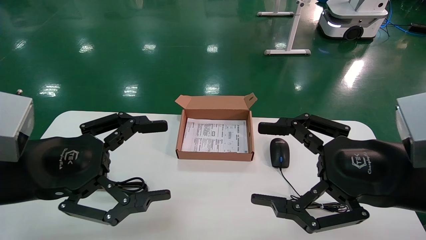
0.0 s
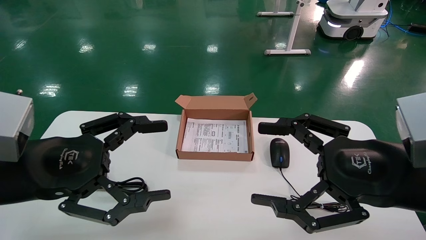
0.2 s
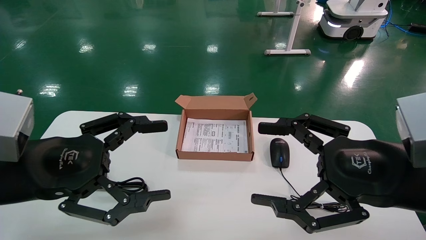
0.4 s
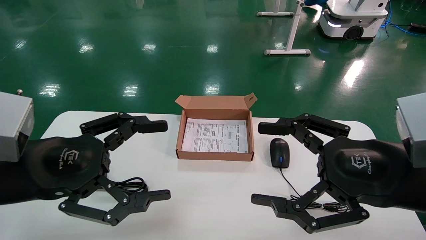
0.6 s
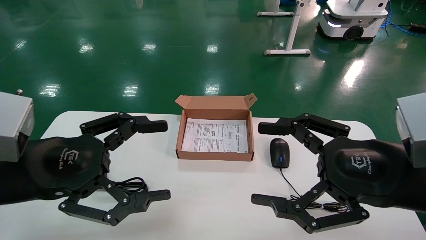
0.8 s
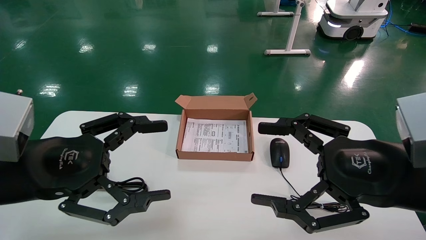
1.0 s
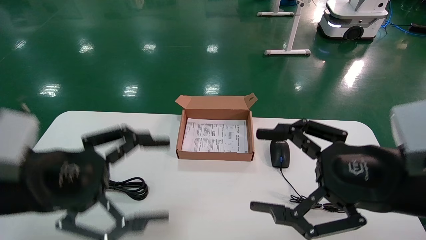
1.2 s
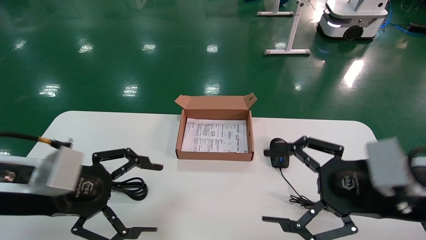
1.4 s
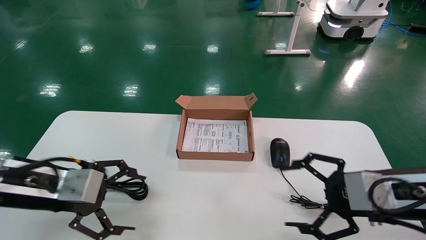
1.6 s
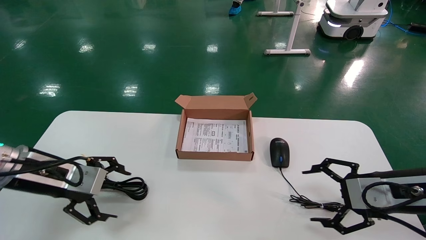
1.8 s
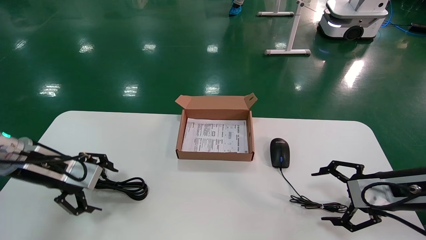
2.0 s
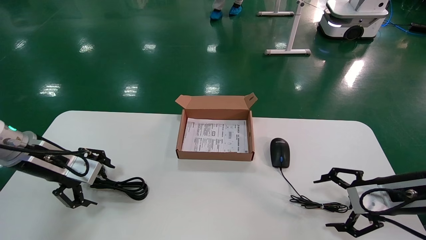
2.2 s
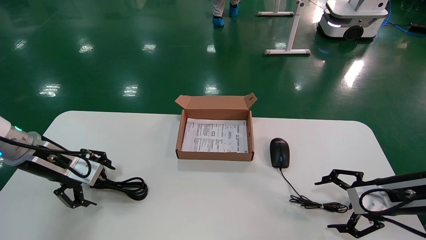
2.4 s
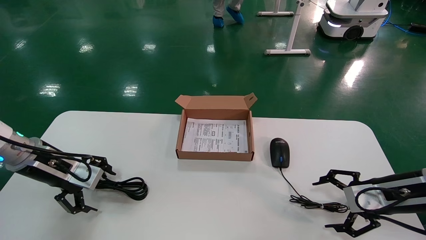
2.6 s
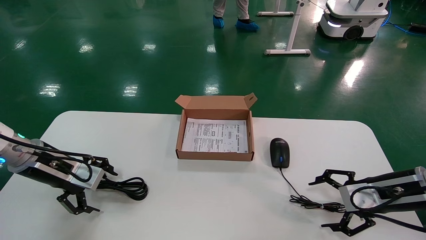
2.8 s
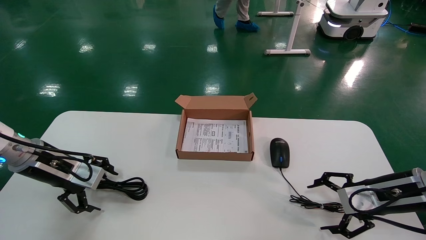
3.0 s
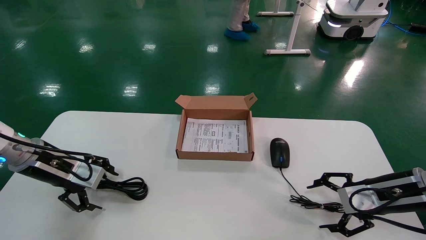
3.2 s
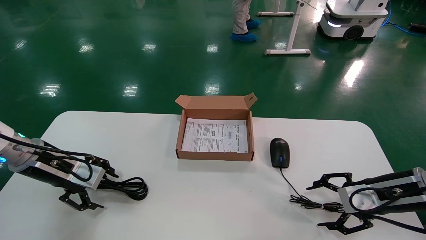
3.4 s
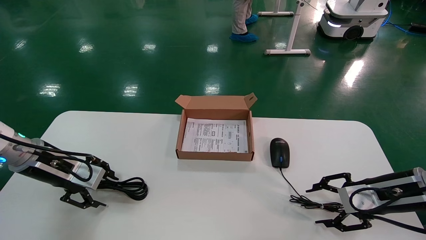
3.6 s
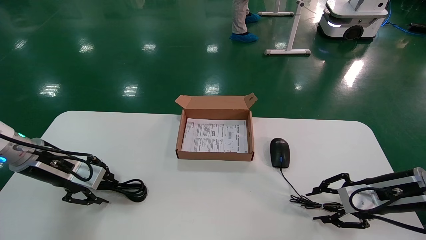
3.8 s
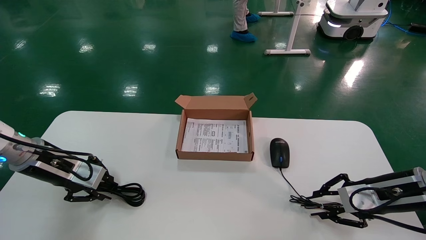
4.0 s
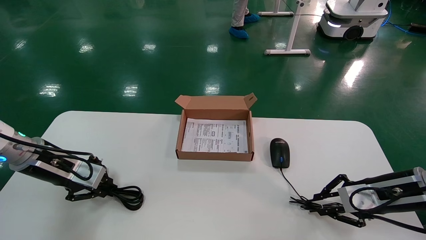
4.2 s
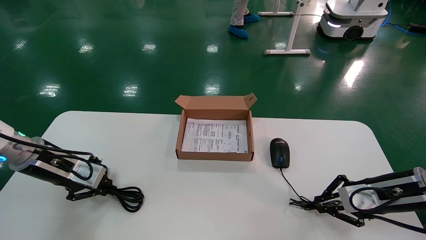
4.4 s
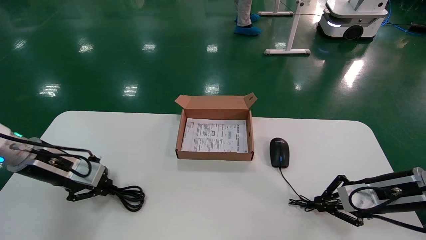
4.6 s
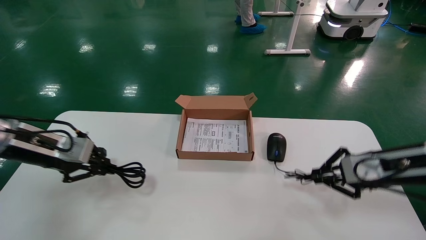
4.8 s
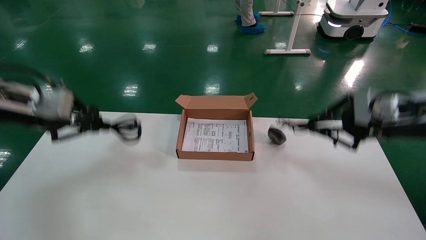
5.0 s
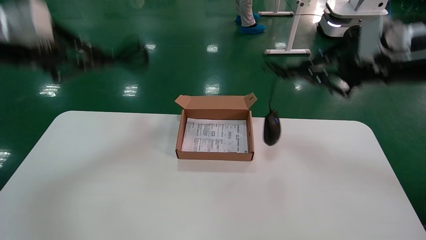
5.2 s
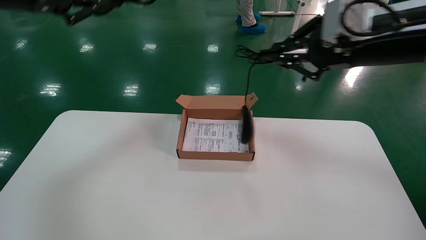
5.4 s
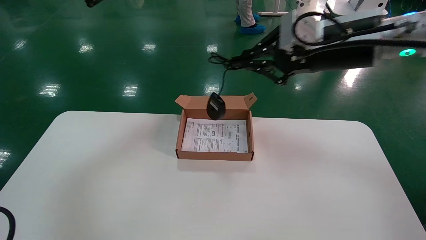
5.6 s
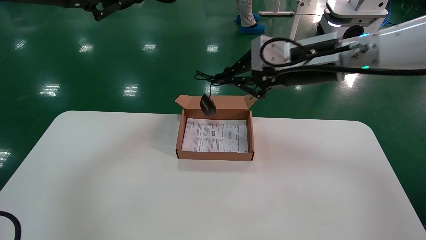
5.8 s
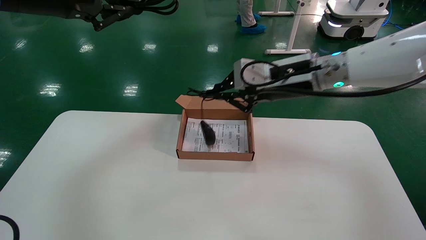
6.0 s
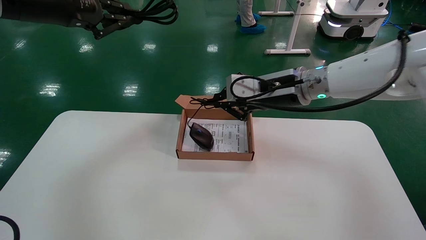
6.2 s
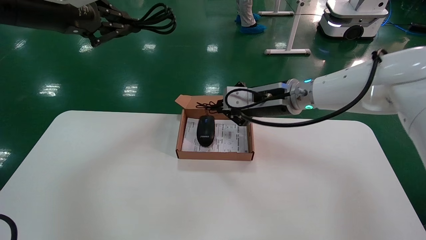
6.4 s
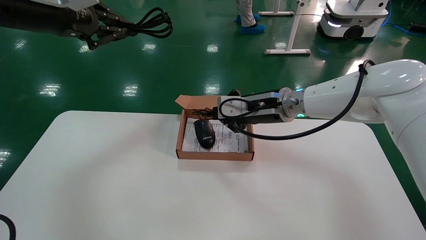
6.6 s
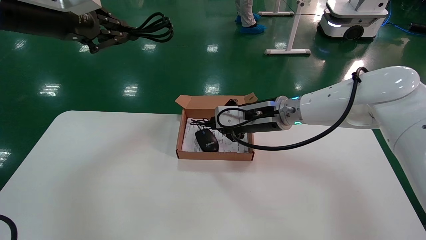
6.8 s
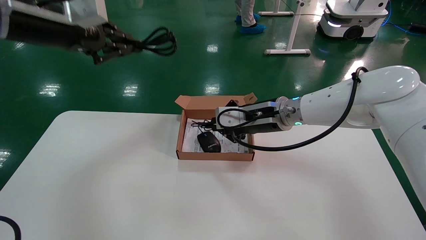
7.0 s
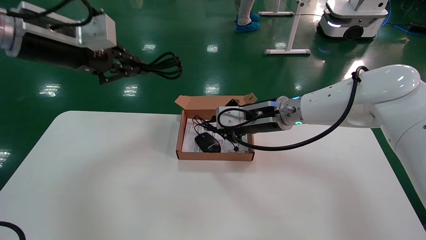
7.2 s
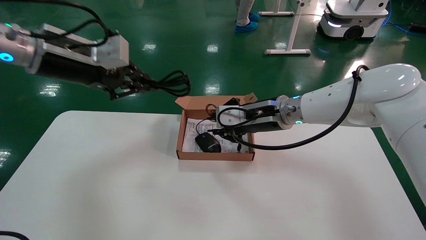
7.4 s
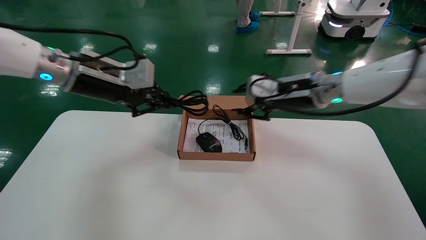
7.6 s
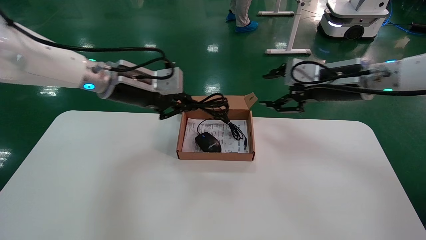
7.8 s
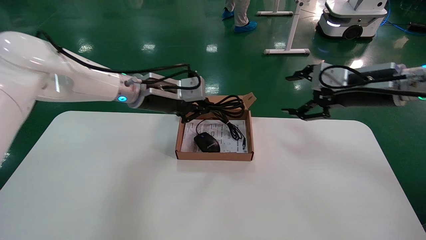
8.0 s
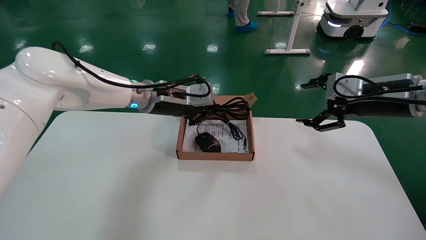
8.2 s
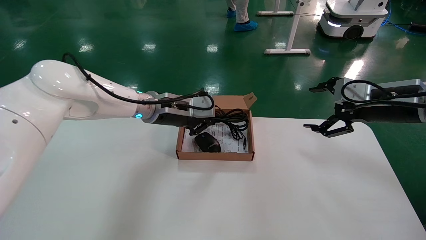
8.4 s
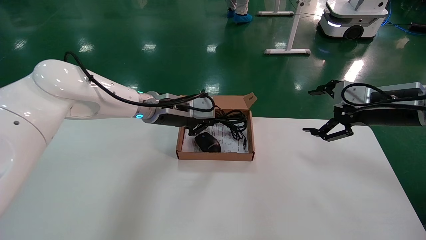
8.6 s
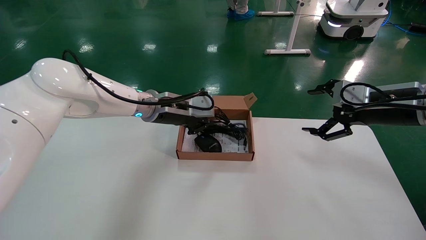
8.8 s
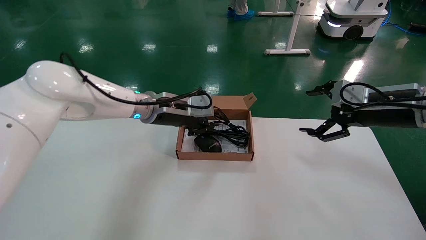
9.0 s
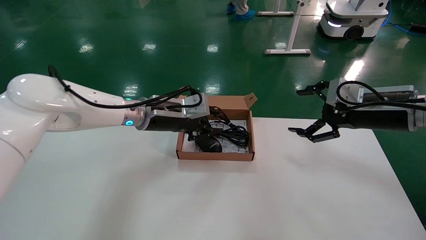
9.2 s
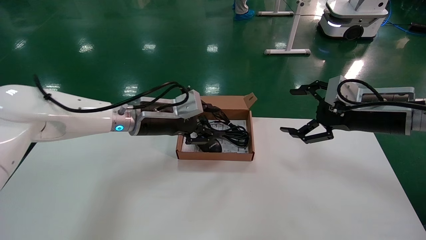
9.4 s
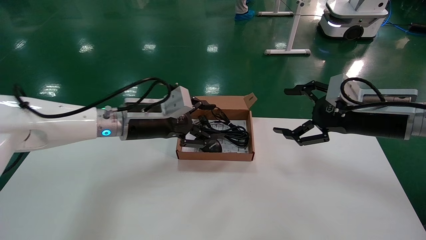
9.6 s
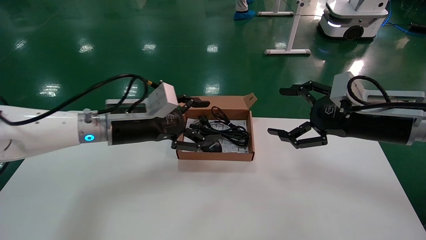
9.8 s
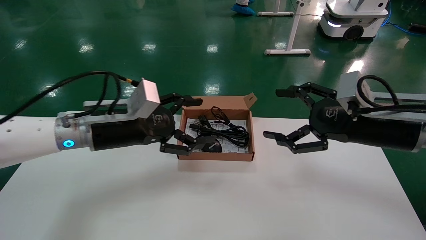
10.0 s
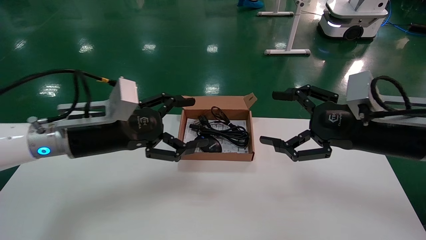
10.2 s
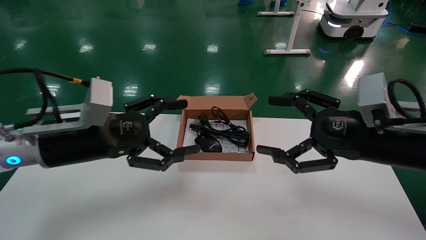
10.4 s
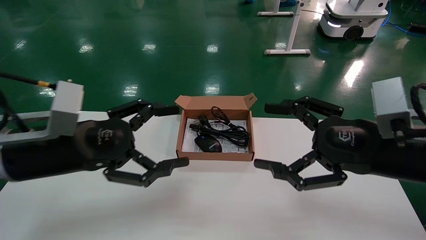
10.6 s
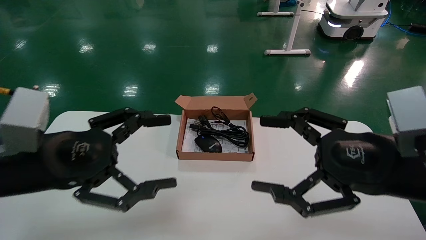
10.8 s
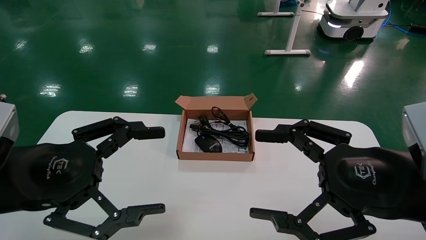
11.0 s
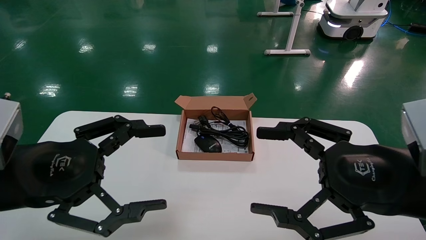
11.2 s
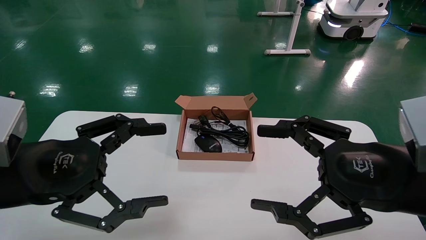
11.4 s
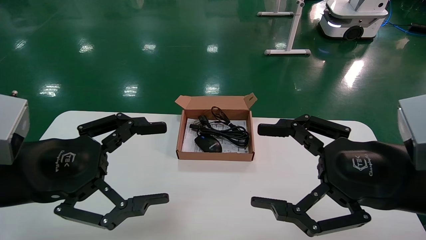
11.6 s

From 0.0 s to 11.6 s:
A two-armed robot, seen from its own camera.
Step, from 1.4 s to 4.4 s: Grab and lift both the mouse and power cord from the accessory packaging area at the same time.
Step, from 4.6 s to 8.8 s: Place the mouse and power cord into the box.
From 0.0 s to 1.4 s: The right gripper ends up approximately 5 cm from where it was.
From 1.4 s to 2.8 s: The left gripper is displaced forward and to the left by some 15 cm, while the right gripper heads forward, to the right and downward, covering about 15 cm.
From 2.8 s to 4.4 s: The left gripper closes its fingers; the right gripper closes up.
From 4.4 s to 5.8 s: The left gripper travels upward by roughly 30 cm. The right gripper heads upward and to the left, covering about 30 cm.
From 5.8 s to 7.2 s: The right gripper shifts roughly 15 cm downward, forward and to the left; the left gripper travels downward by about 5 cm.
From 7.2 s to 8.8 s: The right gripper shifts some 20 cm to the right, and opens its fingers, while the left gripper travels to the right, downward and forward by approximately 25 cm.
From 8.8 s to 10.2 s: The right gripper moves backward and to the left, about 10 cm. The left gripper travels backward and to the left by roughly 15 cm, and opens up.
From 10.2 s to 11.6 s: The two grippers go some 10 cm backward.

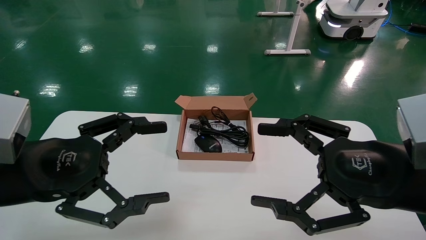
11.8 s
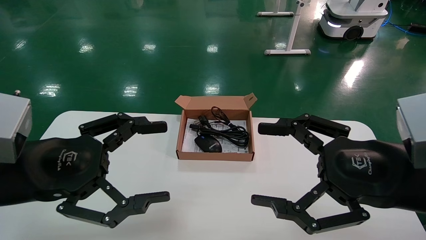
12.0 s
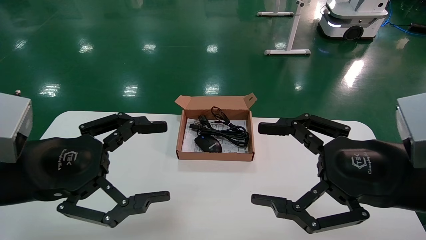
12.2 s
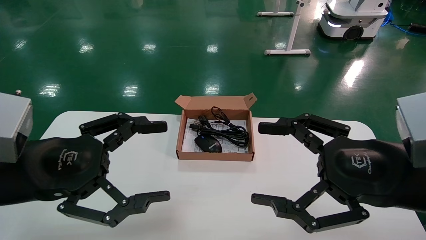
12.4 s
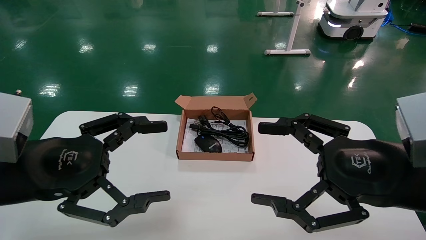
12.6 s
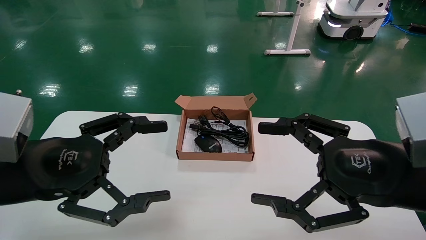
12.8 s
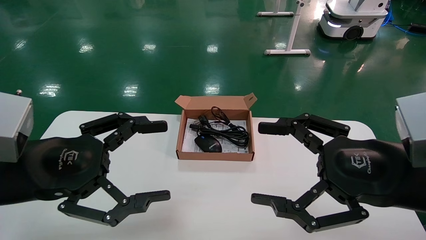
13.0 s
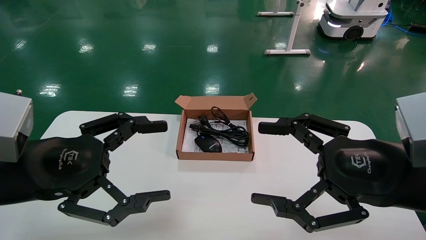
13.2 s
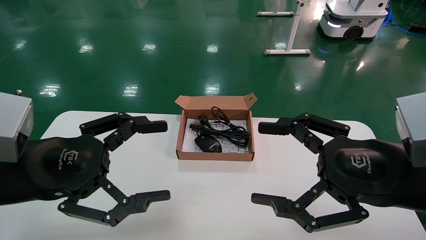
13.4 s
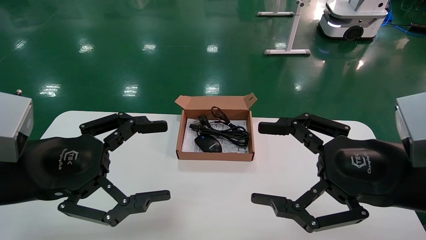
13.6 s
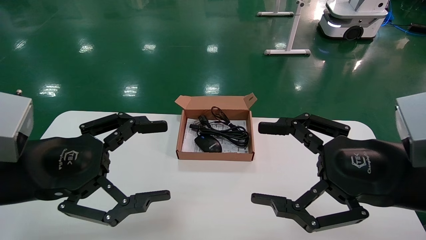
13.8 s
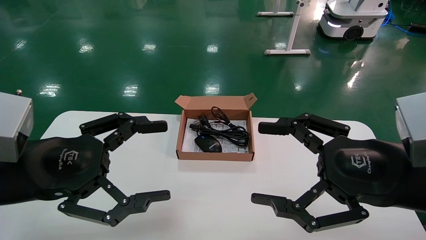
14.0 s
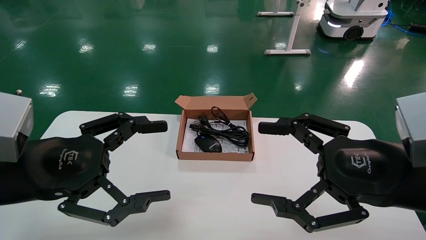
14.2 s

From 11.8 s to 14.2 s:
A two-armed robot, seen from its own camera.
From 11.8 s to 14.2 s: Neither gripper changes place.
